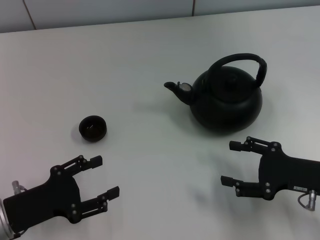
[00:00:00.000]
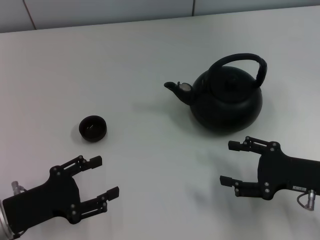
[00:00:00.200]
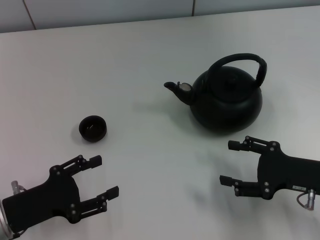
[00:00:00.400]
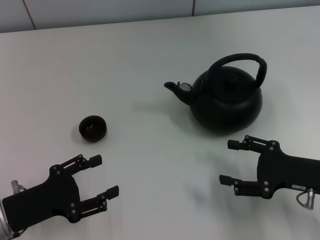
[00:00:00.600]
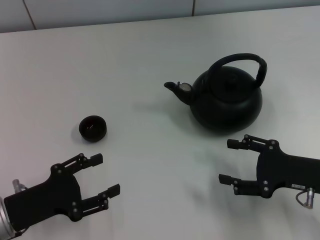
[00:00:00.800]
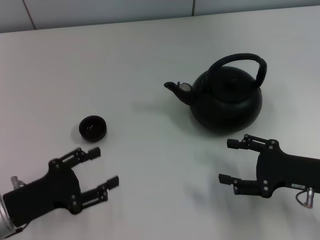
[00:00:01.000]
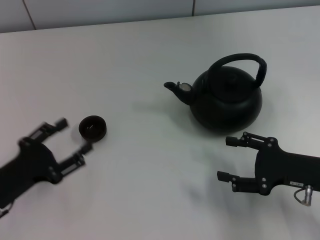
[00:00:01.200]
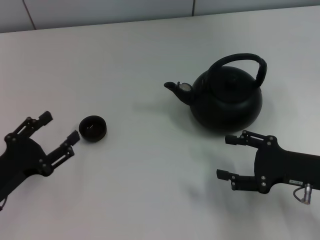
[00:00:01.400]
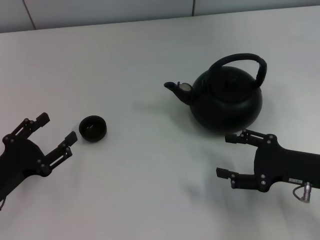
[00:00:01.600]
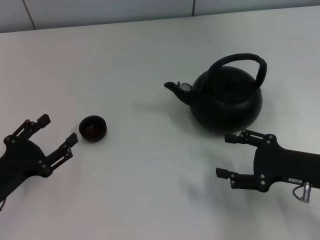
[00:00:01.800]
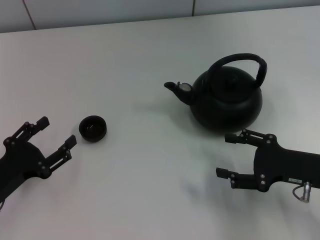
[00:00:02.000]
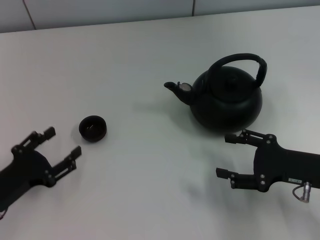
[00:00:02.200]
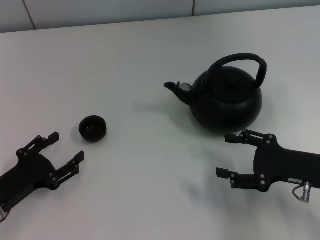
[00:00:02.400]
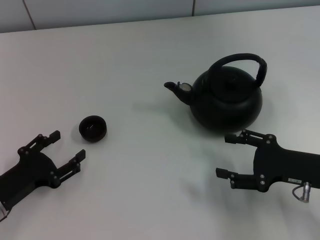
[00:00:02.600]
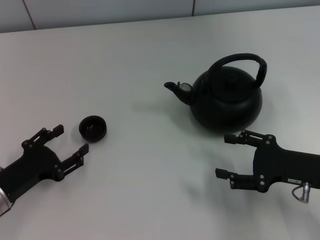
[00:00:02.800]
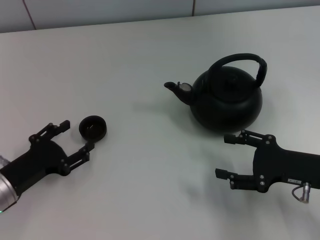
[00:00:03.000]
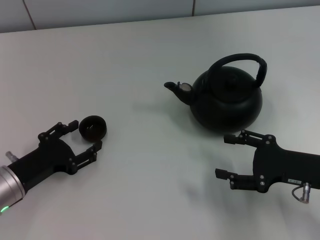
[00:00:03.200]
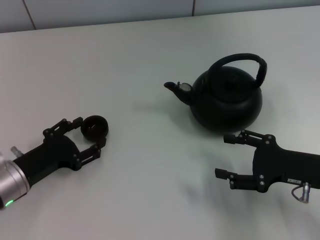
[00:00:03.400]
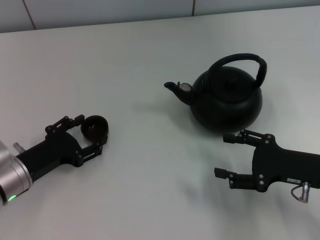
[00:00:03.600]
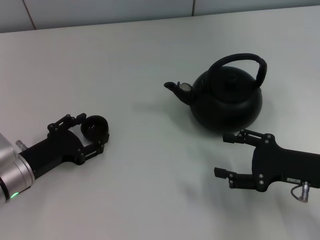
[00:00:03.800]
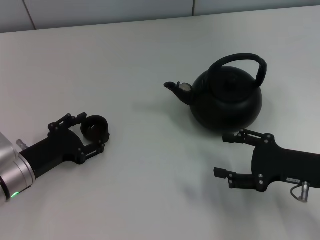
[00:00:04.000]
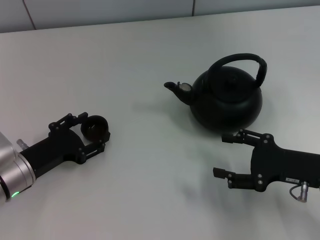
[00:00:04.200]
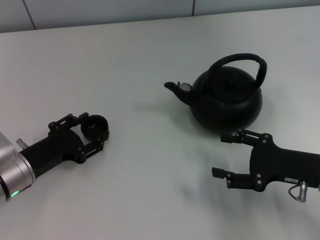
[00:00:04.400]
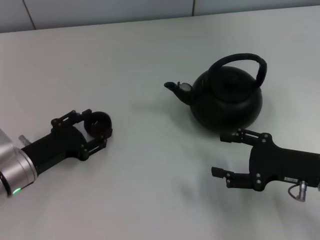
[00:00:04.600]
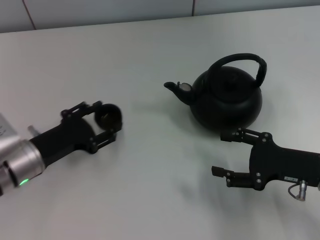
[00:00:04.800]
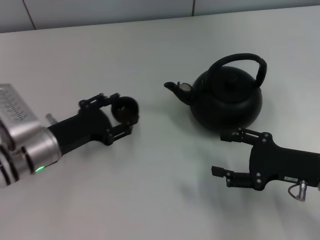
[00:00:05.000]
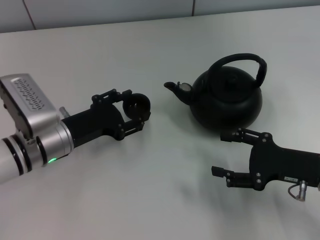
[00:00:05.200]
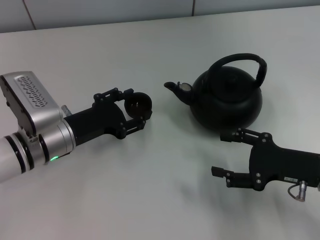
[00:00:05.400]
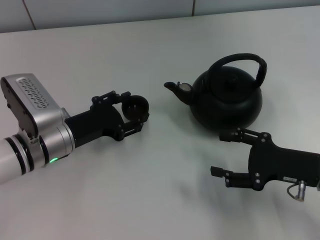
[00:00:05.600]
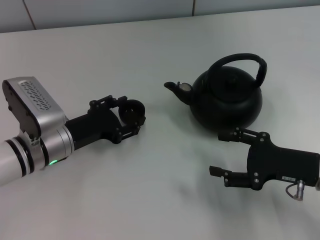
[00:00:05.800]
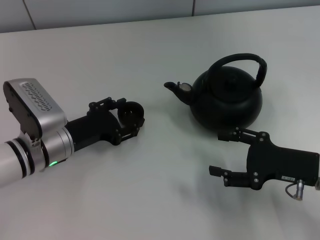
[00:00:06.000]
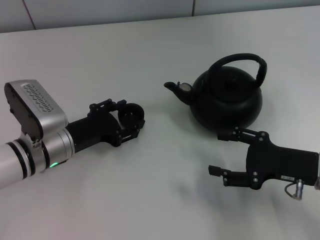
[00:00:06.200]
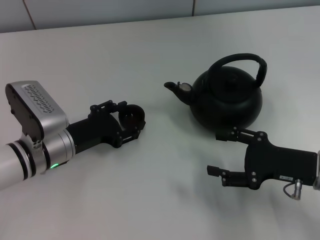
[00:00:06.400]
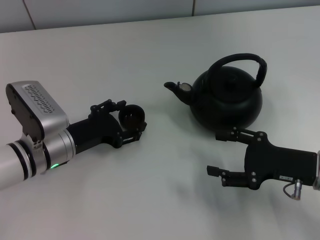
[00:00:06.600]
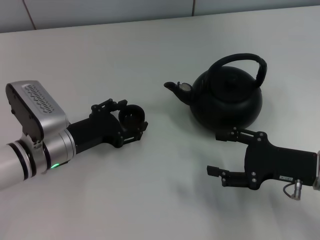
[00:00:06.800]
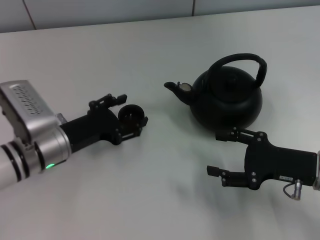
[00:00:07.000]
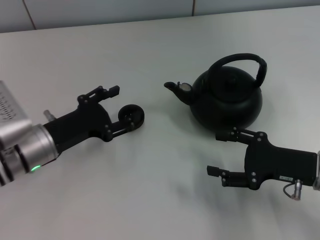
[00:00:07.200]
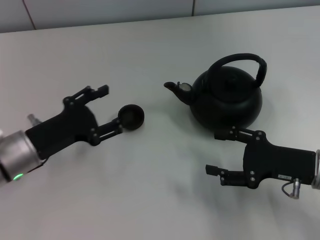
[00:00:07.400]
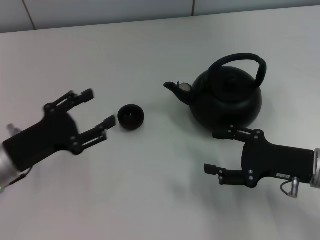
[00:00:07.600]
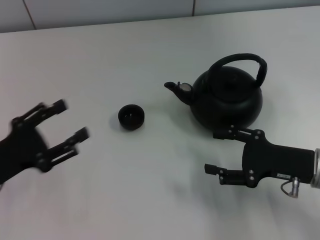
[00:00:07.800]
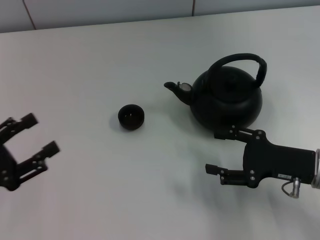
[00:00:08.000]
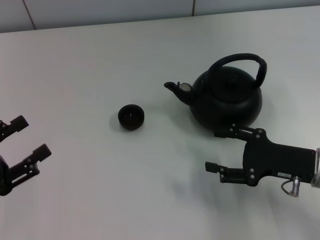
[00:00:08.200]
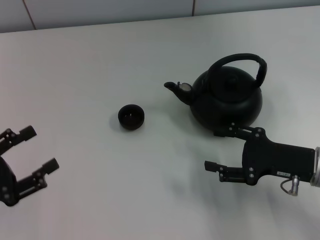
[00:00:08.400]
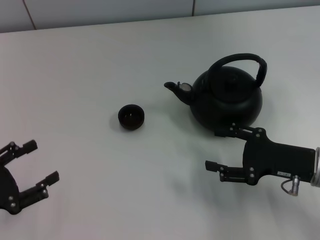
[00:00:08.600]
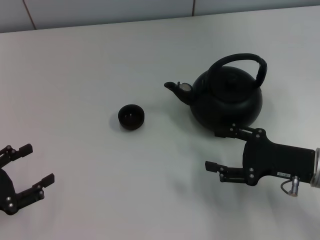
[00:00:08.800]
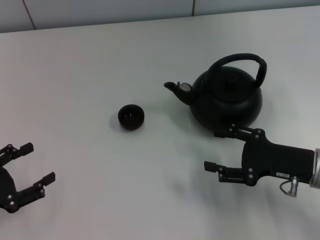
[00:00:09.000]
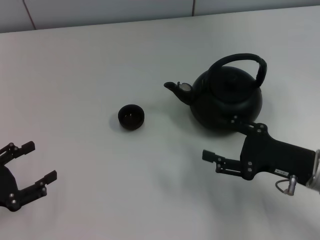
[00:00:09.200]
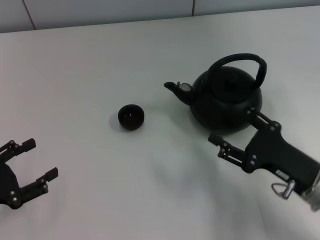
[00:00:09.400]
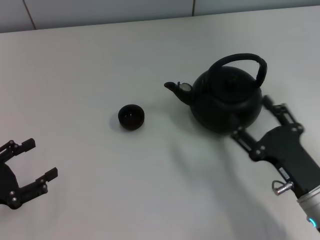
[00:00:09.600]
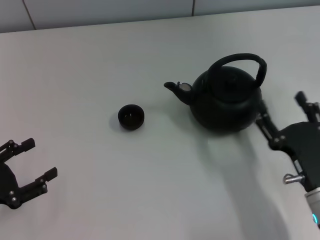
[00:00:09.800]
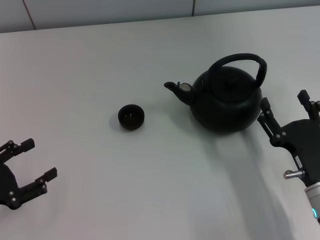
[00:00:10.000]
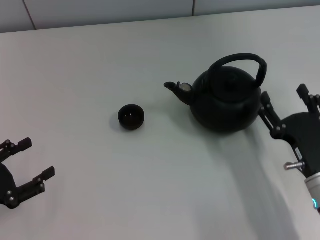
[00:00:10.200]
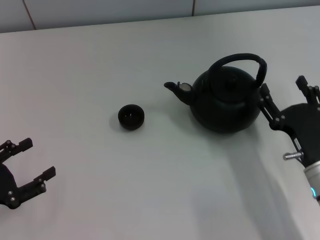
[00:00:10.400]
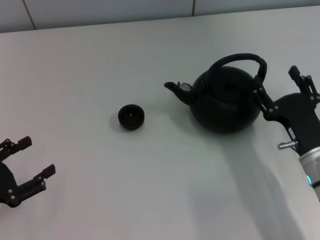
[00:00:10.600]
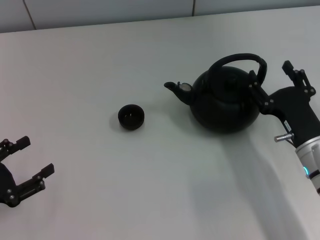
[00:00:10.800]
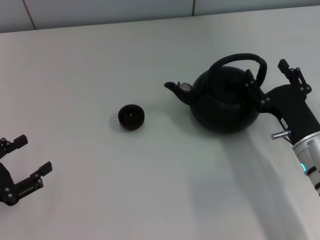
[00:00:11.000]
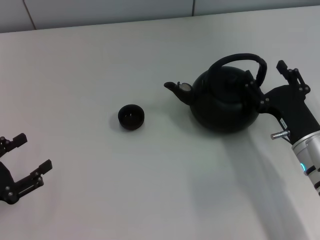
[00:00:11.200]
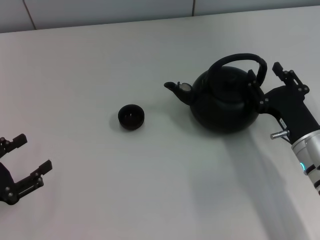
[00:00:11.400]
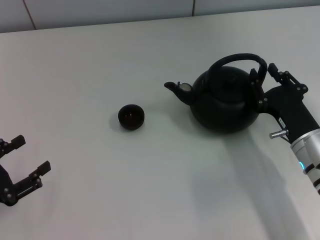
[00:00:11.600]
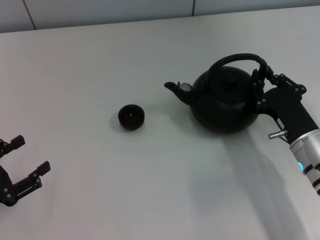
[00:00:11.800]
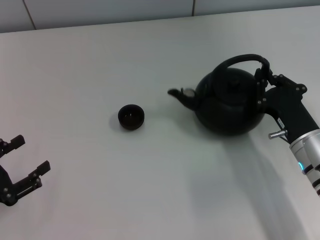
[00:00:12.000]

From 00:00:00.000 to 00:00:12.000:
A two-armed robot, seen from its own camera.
Task of the whole recording: Grasp the handle of the teapot with one hand and pour tea into the teacup.
Step, from 00:00:00.000 to 00:00:04.600: Pick up the teacup with the left gripper.
Step, from 00:00:04.800 to 00:00:07.400: Place the teacup in the center of view with the left gripper.
From 00:00:01.600 to 00:00:03.000: There are only small adjustments of the grippers.
From 00:00:03.000 to 00:00:04.400: The grippers move only a little.
From 00:00:04.400 to 00:00:06.000: The left gripper heads to the right, covering approximately 5 cm.
From 00:00:06.000 to 00:00:07.600: The left gripper moves to the left and backward, roughly 10 cm.
From 00:00:07.600 to 00:00:09.000: The left gripper heads to the left and backward, covering some 10 cm.
From 00:00:10.400 to 00:00:12.000: The right gripper closes.

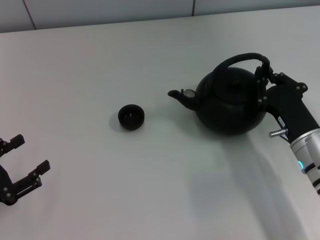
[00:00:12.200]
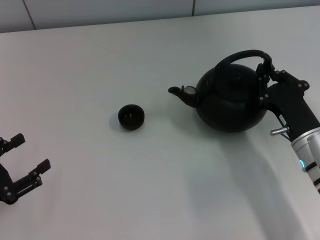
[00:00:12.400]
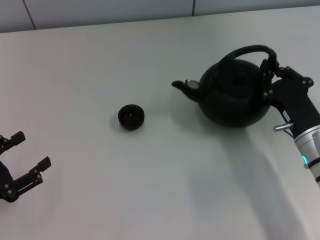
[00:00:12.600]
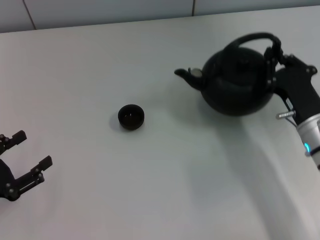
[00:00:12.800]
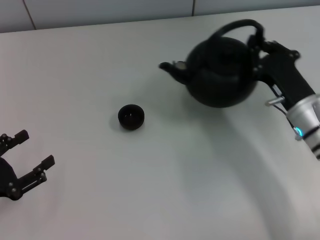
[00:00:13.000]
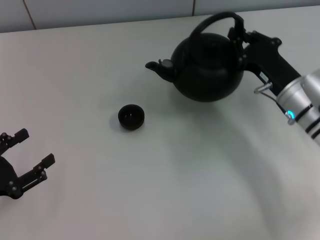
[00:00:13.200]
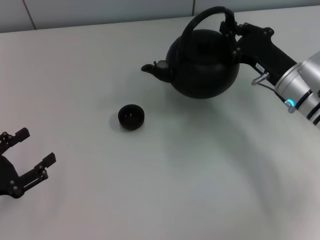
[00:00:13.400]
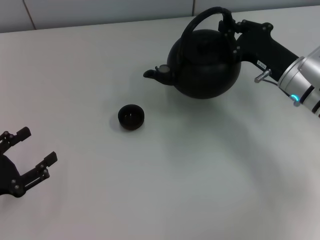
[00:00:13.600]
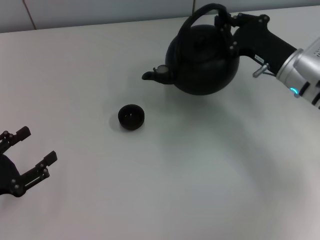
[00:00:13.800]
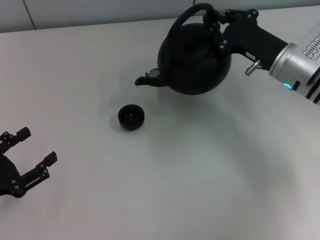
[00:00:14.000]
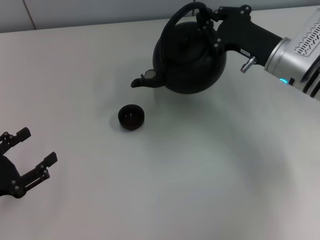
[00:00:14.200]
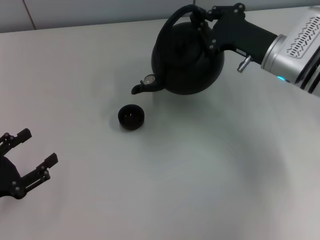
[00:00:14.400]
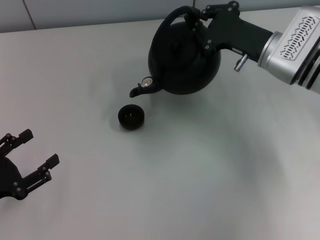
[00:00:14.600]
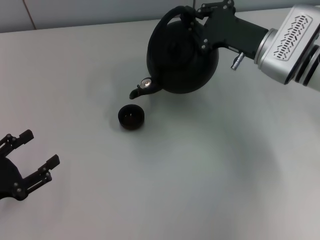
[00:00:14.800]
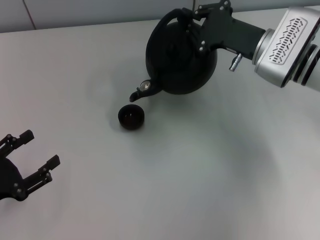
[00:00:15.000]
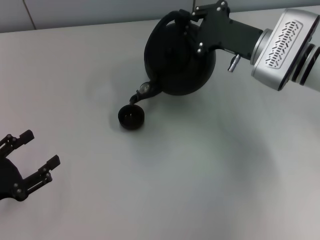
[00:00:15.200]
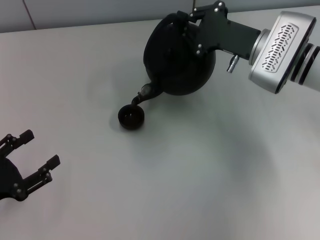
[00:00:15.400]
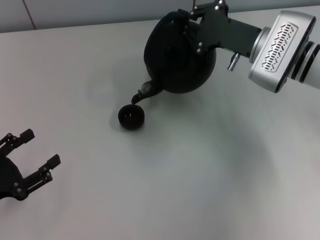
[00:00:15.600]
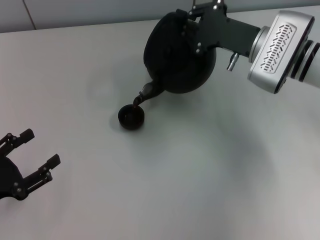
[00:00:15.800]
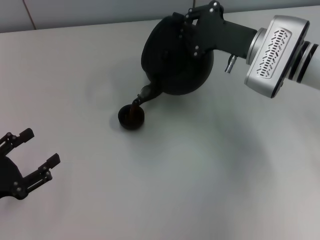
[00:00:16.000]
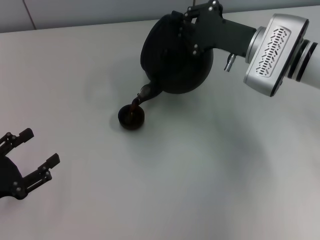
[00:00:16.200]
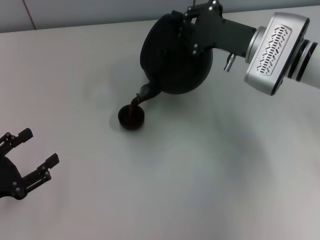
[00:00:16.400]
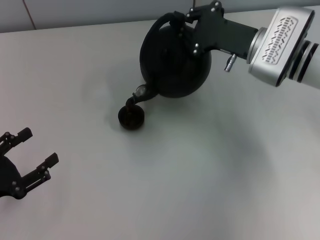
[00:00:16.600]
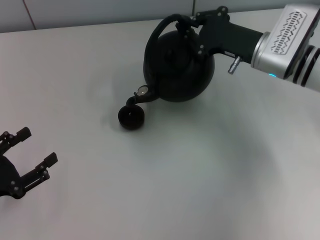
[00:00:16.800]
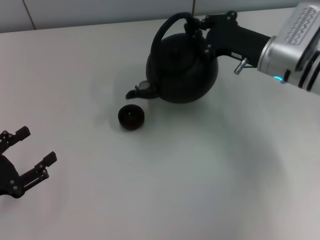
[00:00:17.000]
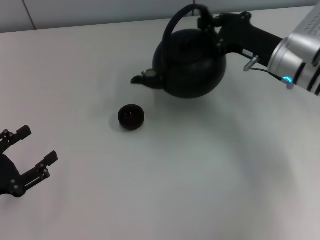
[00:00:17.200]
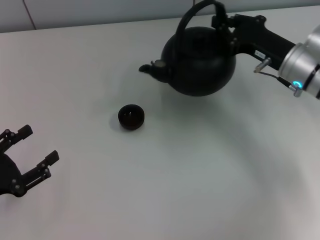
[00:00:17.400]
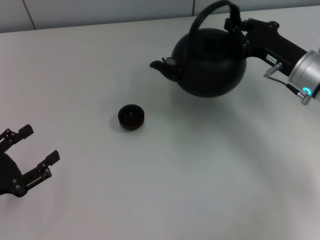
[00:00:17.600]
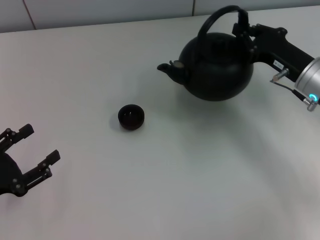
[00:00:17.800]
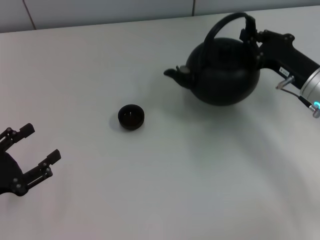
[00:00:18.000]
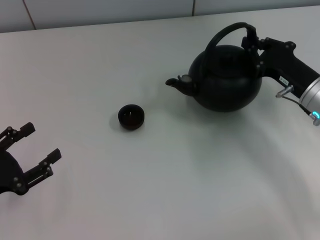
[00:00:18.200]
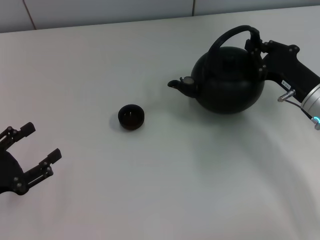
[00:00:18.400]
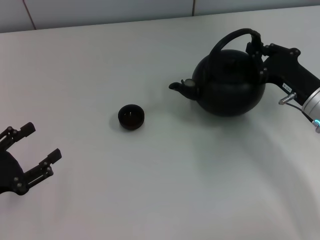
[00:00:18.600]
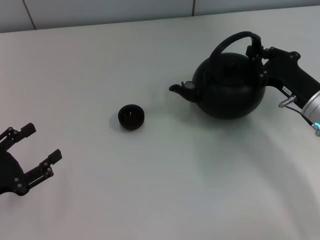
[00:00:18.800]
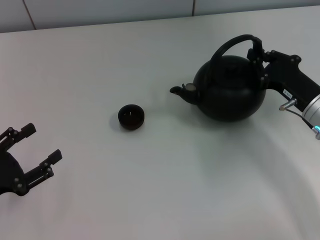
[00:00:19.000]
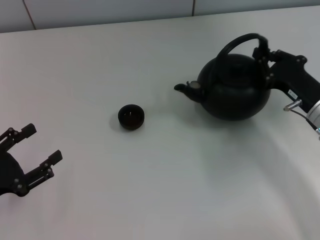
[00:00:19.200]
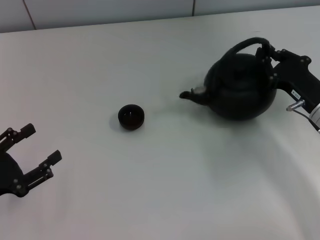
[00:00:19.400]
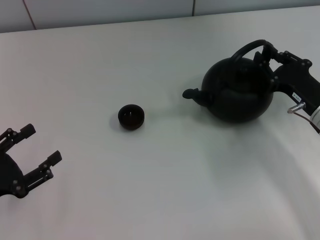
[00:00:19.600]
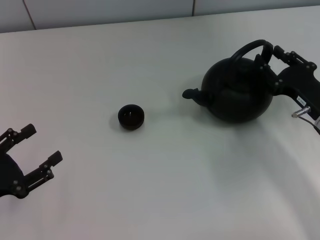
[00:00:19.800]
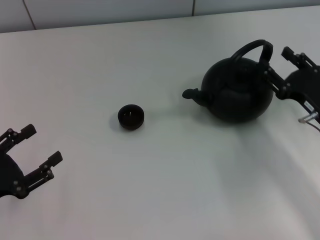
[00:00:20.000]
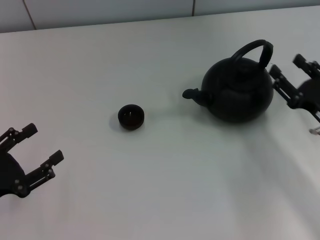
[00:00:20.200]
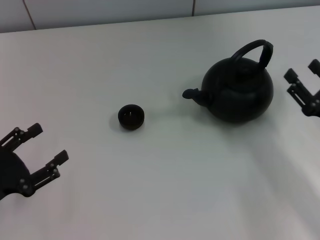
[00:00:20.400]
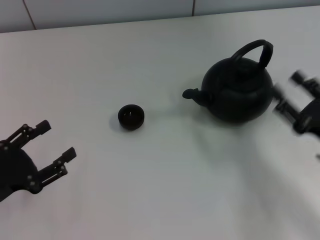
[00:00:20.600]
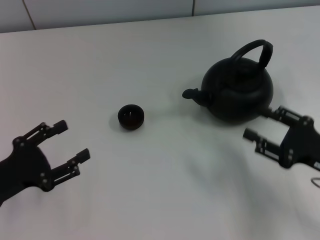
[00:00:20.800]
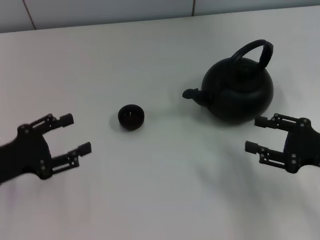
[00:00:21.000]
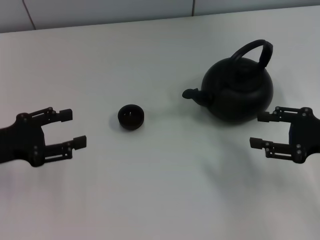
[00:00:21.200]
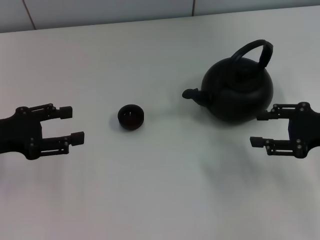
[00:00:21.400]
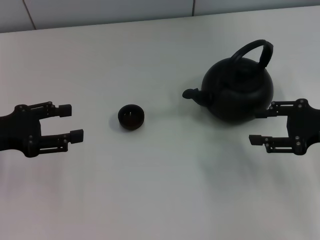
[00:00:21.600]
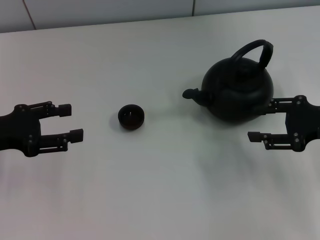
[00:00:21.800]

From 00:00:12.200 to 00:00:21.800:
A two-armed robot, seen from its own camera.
Task of the whole recording: Grasp the handle of the teapot with one hand and pour tea into the teacup.
Step, from 00:00:17.600 to 00:00:20.000: Put down the teapot with the right gripper.
From 00:00:12.200 to 00:00:13.800: The right gripper shifts about 15 cm forward and upward.
From 00:00:13.800 to 00:00:15.400: The right gripper changes place by roughly 5 cm.
From 00:00:17.000 to 00:00:18.600: The right gripper heads backward, to the right and downward, covering roughly 10 cm.
From 00:00:18.600 to 00:00:20.200: The right gripper goes roughly 5 cm backward, and opens up.
From 00:00:20.200 to 00:00:21.800: The left gripper travels forward and upward by roughly 10 cm. Meanwhile the right gripper is displaced upward by some 10 cm.
